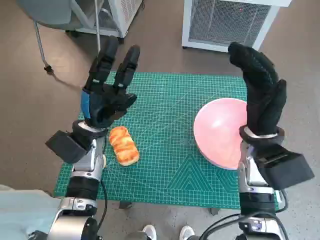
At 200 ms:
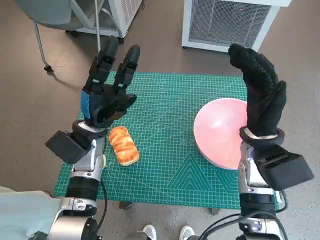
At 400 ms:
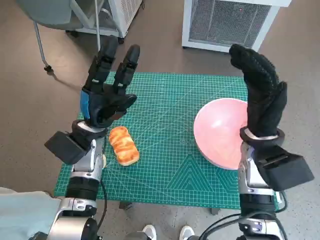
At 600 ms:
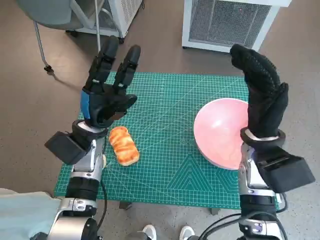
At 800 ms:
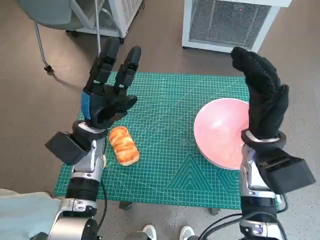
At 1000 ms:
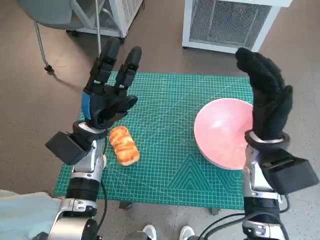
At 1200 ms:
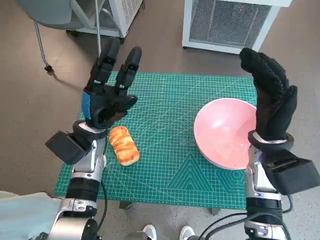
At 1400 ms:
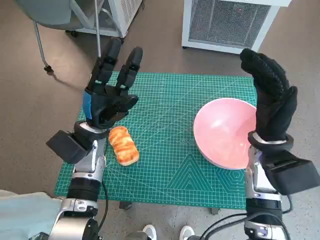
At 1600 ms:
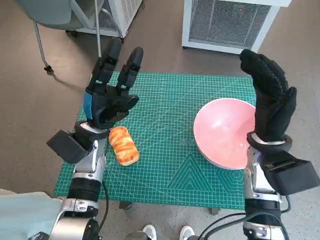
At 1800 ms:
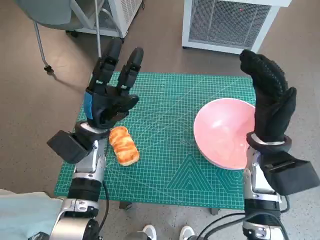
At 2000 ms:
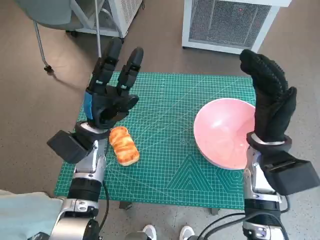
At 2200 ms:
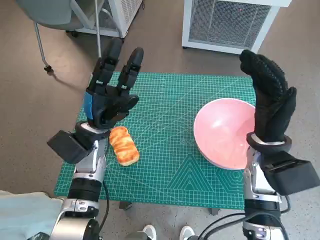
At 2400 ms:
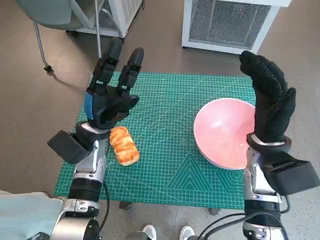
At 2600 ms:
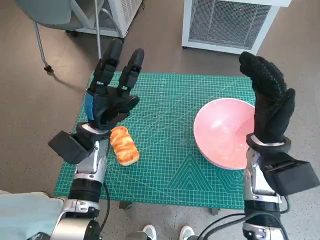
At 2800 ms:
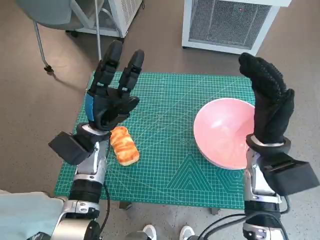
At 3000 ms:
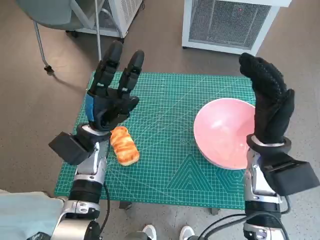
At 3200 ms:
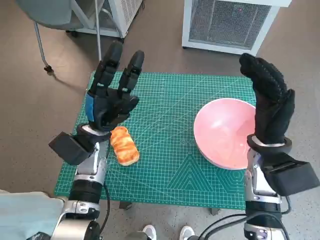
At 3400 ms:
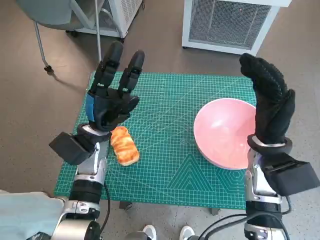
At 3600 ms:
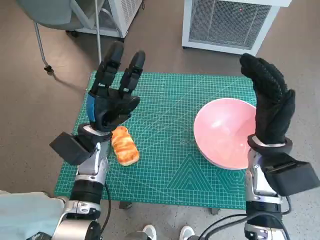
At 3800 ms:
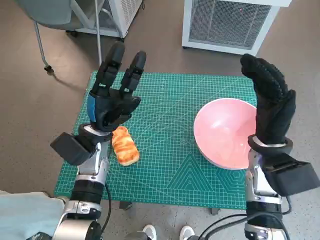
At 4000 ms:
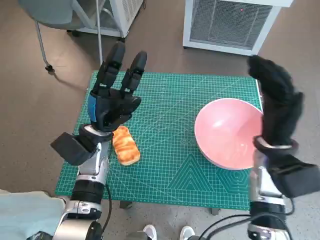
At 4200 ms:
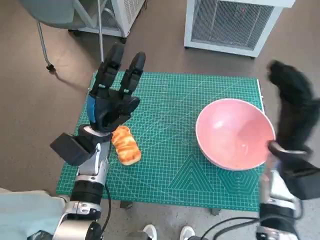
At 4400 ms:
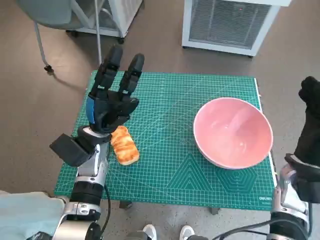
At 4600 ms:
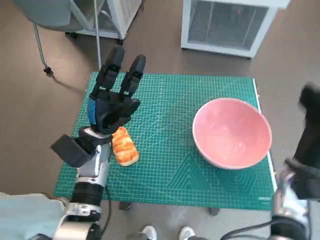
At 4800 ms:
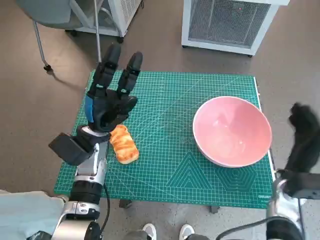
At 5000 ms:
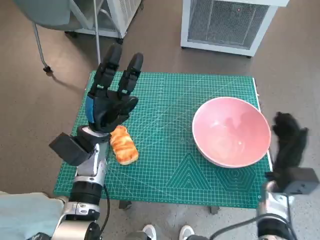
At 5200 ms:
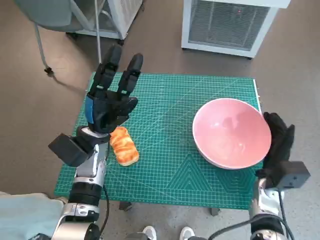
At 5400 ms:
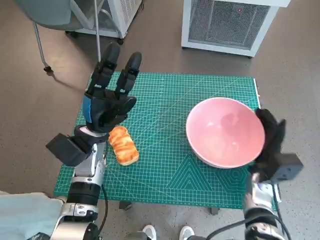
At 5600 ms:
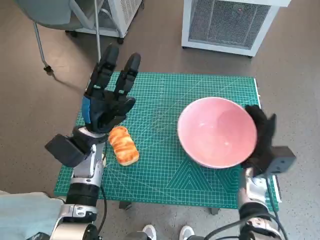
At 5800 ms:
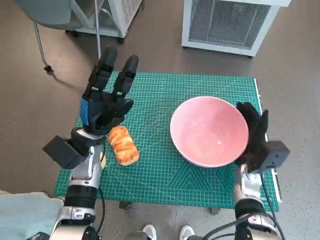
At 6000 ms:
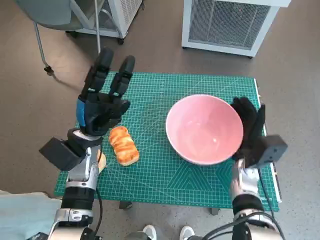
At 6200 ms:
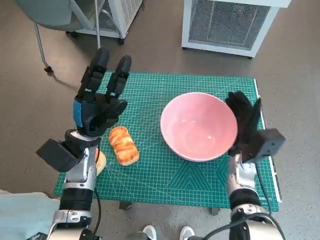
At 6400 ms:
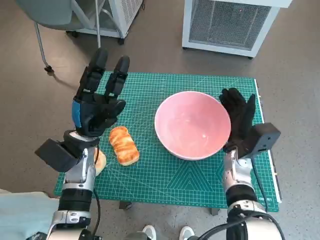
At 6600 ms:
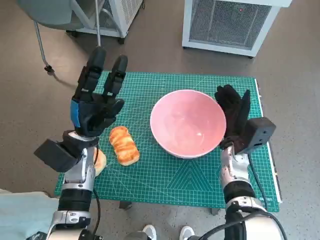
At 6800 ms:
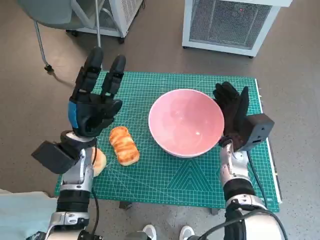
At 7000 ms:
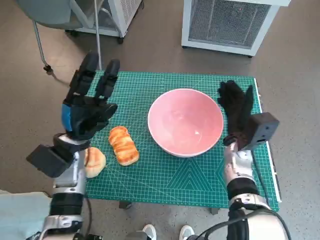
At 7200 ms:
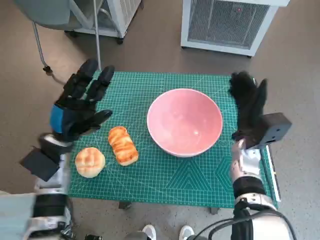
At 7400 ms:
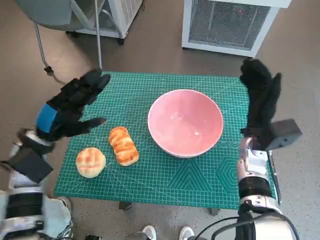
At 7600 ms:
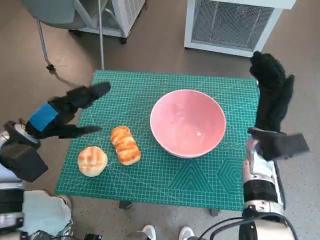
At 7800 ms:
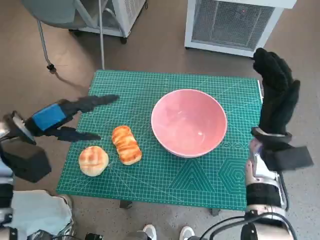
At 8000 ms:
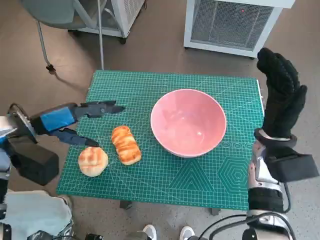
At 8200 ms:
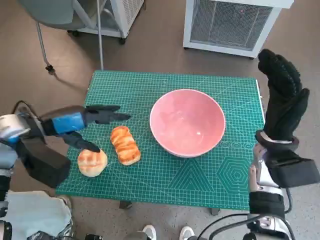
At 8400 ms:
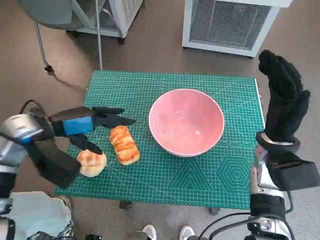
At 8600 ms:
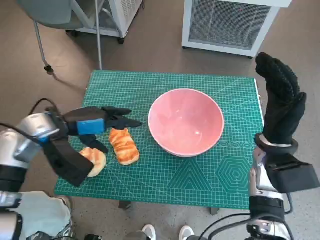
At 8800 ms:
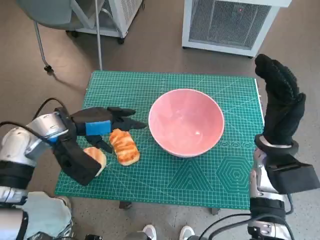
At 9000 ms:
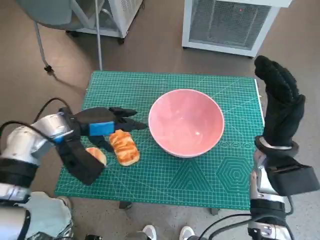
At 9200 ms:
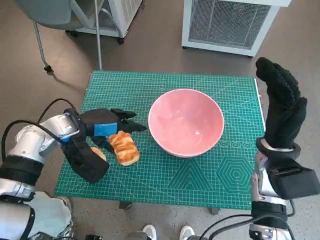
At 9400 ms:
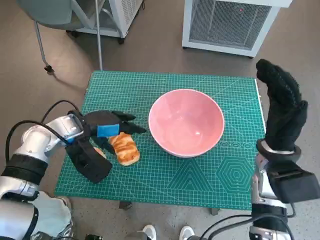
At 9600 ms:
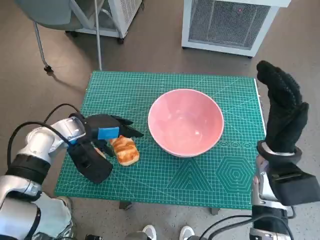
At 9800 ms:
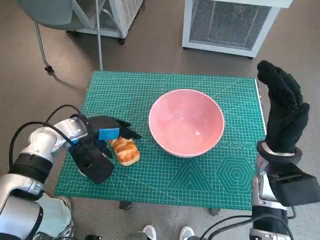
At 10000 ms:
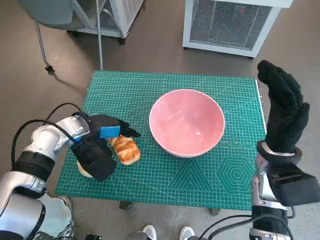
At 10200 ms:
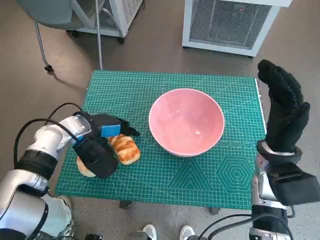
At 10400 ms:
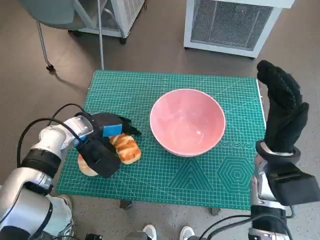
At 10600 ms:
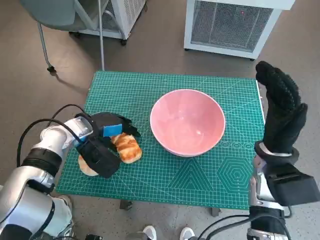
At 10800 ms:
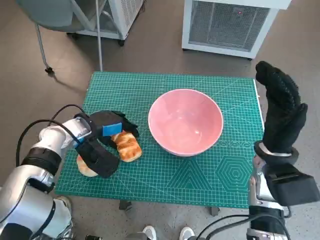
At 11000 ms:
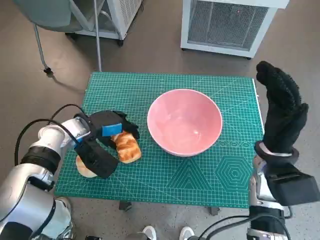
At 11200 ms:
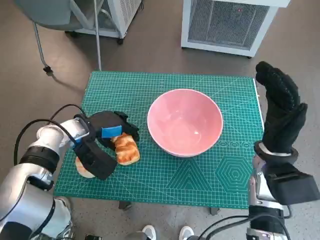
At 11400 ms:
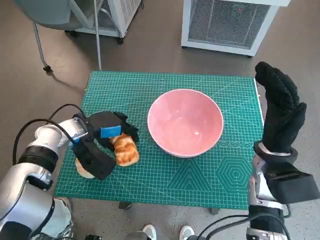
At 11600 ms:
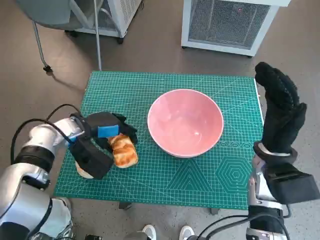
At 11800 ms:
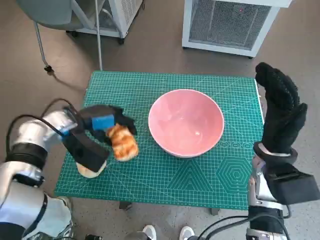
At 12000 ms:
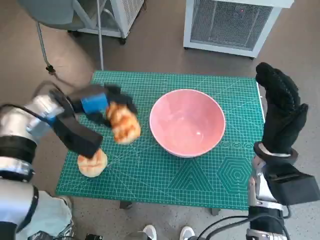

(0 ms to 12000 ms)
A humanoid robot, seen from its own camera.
Task of the whole recording: Push the bowl to the center of the table and put the bread into the bowl.
Step, 0 ms - 7000 ms: Move the pink bowl to the center of table with right hand.
Step, 7200 ms - 10600 ms: Grasp the long bread with left hand.
1600 ms - 3000 ms: Both hands stay about where they are.
3000 ms - 4400 ms: The right hand goes some 5 cm to the right.
4400 ms - 6000 ms: The right hand travels downward and to the left by about 10 cm.
6000 ms - 7600 ms: The left hand shifts approximately 10 cm to the left and upward. The right hand goes roughly 10 cm upward.
7600 ms - 9000 ms: The left hand is displaced to the right by some 5 cm.
9000 ms - 10400 ms: The left hand ends up roughly 5 cm from where it was.
10400 ms - 12000 ms: The left hand shifts roughly 5 cm upward.

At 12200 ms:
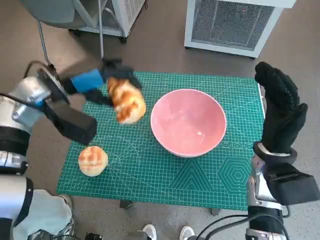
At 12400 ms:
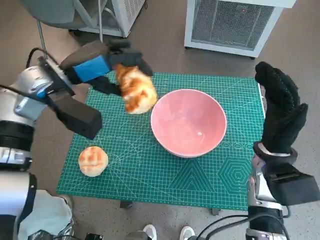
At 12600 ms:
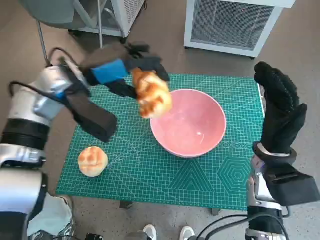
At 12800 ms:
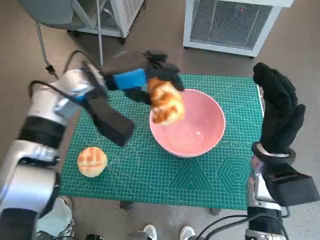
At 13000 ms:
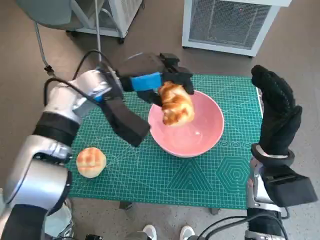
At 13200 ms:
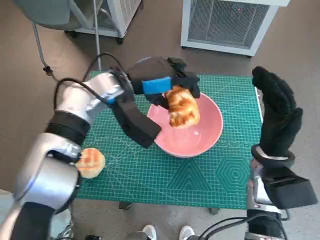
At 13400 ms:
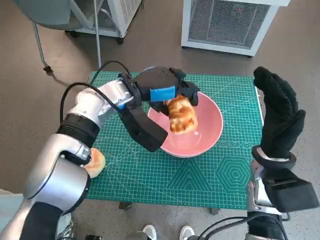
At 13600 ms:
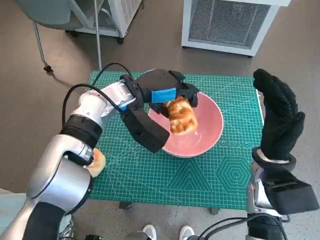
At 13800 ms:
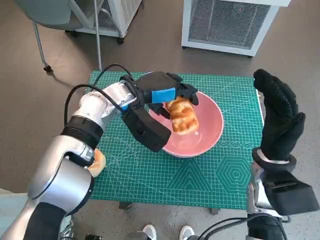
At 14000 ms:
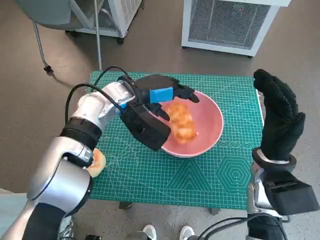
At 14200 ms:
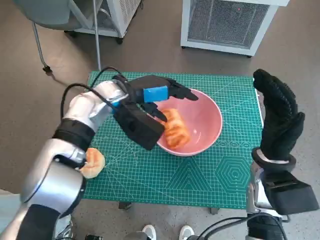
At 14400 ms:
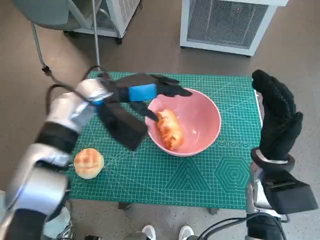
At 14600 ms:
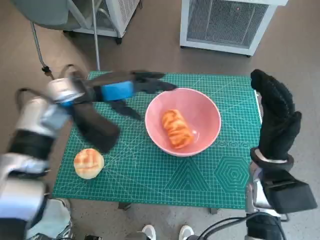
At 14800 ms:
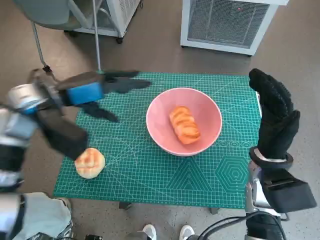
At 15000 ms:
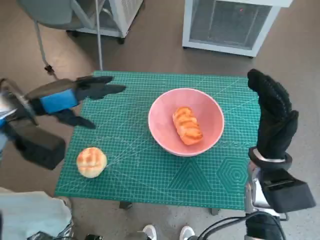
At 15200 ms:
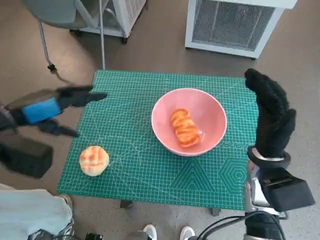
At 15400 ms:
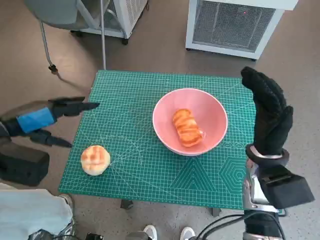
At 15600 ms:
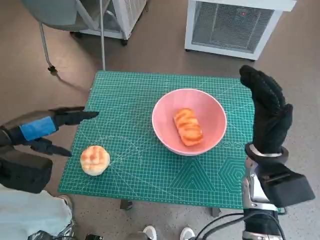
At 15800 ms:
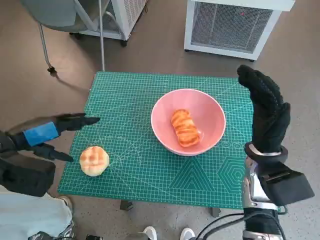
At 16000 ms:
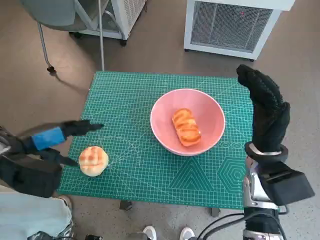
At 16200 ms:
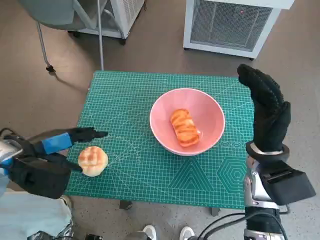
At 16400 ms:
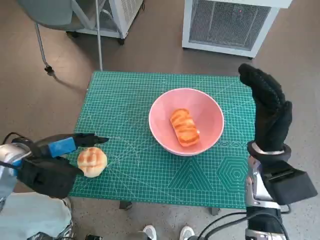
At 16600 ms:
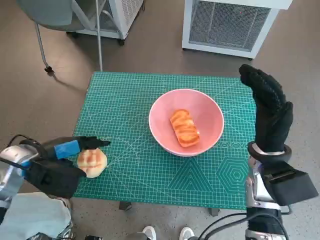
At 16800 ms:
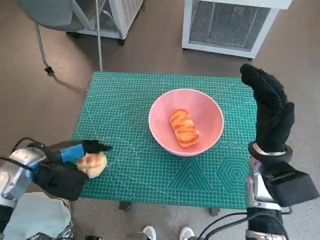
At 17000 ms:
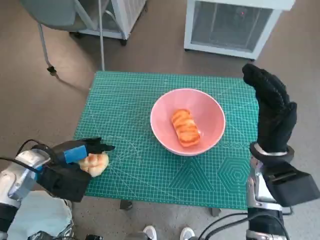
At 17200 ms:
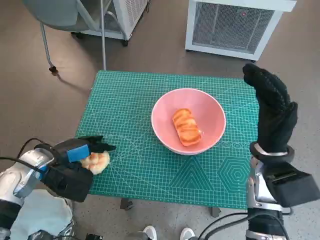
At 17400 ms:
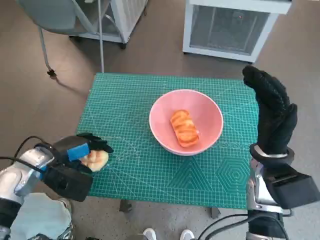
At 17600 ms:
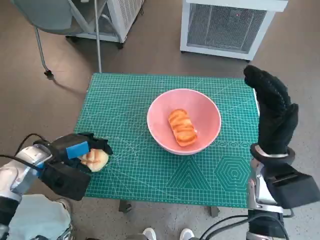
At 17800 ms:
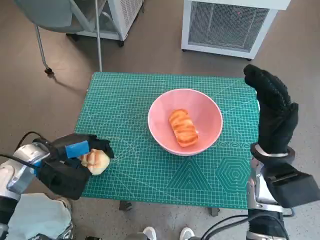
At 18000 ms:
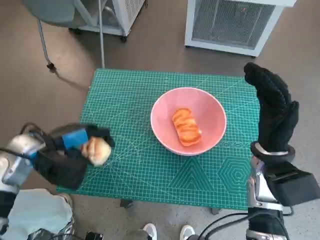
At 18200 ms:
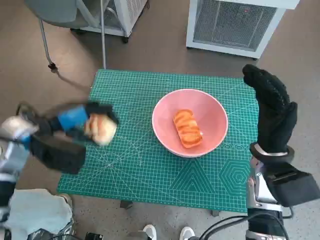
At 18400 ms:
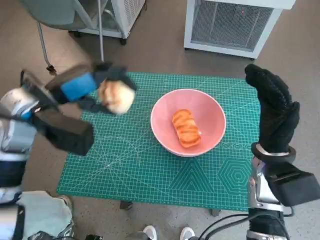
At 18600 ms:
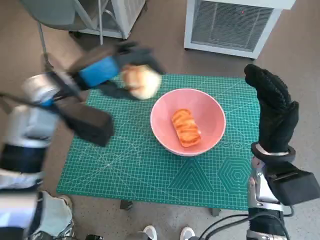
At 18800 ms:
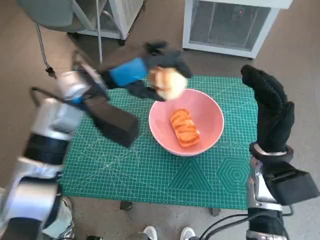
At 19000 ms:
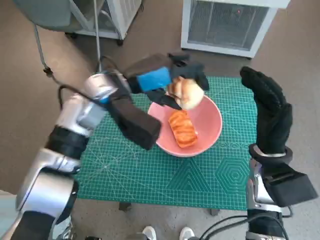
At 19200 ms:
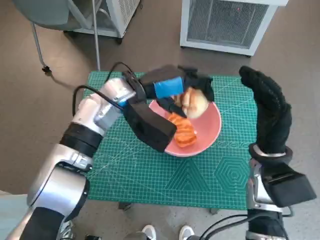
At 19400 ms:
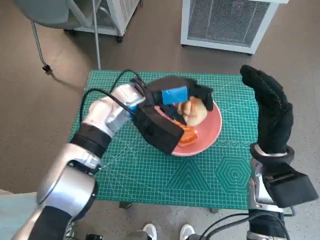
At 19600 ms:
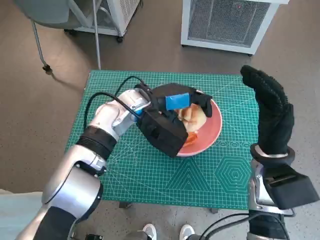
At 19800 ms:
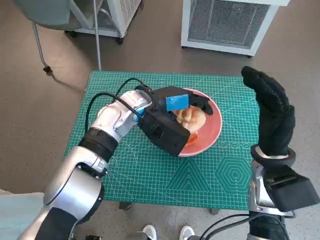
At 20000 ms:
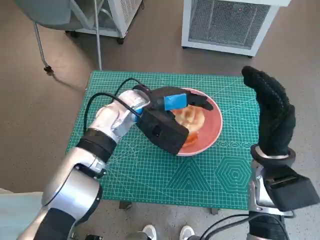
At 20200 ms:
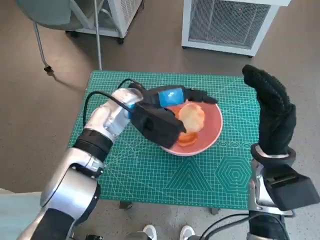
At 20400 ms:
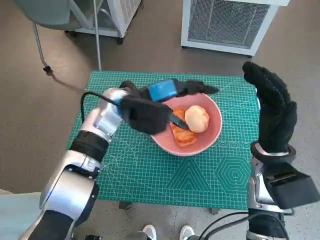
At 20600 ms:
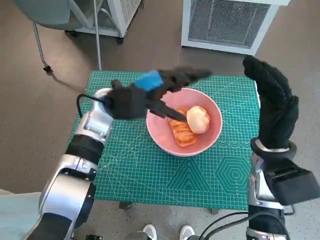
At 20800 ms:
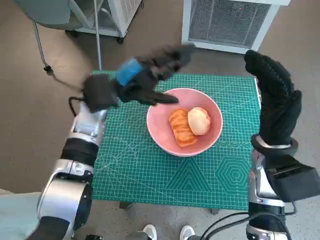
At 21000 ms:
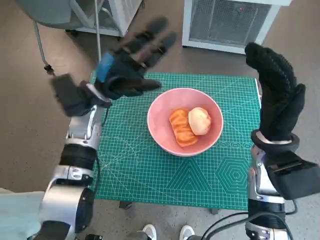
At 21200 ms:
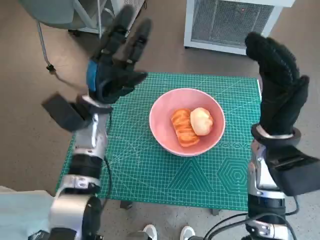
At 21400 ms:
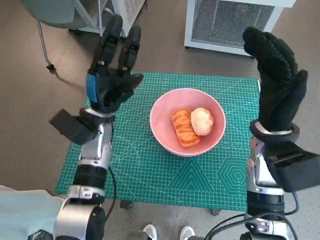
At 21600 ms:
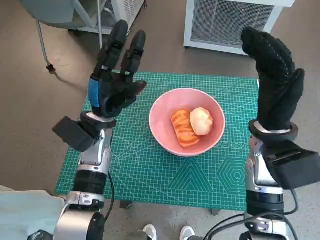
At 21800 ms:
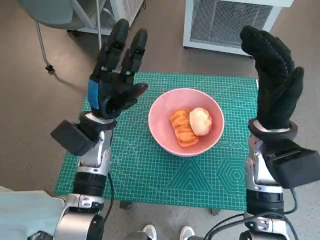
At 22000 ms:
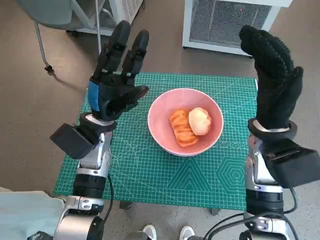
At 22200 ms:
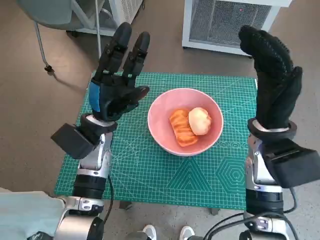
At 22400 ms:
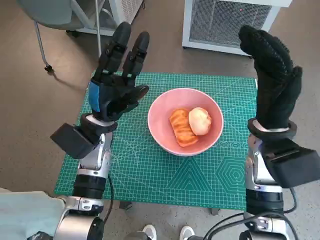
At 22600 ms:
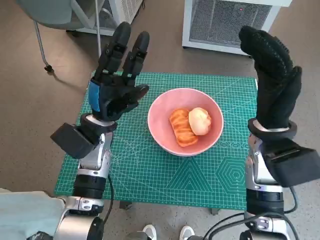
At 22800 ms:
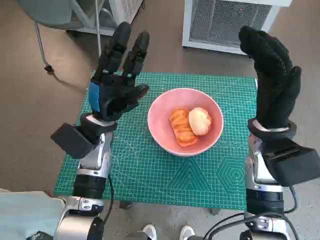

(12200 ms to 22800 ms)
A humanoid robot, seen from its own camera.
Task of the whole recording: Push the bowl to the center of the table and put the bread into the bowl.
Step, 12200 ms - 14600 ms: Place the long bread in pink bowl with left hand.
Step, 14800 ms - 17400 ms: Grasp the round bread with left hand.
Step, 17600 ms - 20600 ms: Place the round bread in pink bowl with left hand.
12200 ms - 13800 ms: The left hand shifts some 15 cm to the right.
13800 ms - 15200 ms: The left hand goes roughly 20 cm to the left and backward.
15200 ms - 16800 ms: The left hand shifts about 10 cm downward.
16800 ms - 18200 ms: The left hand goes roughly 5 cm upward.
18200 ms - 19800 ms: The left hand is displaced to the right by approximately 20 cm.
19800 ms - 21200 ms: The left hand shifts about 10 cm to the left.
